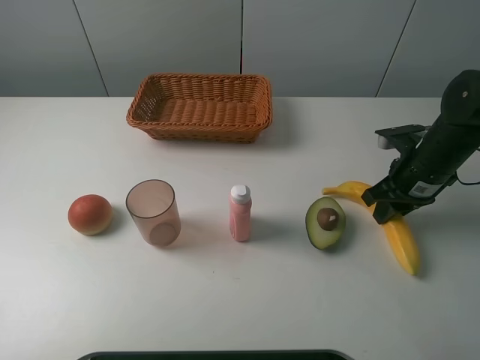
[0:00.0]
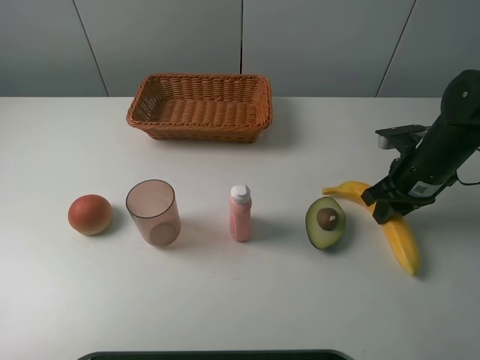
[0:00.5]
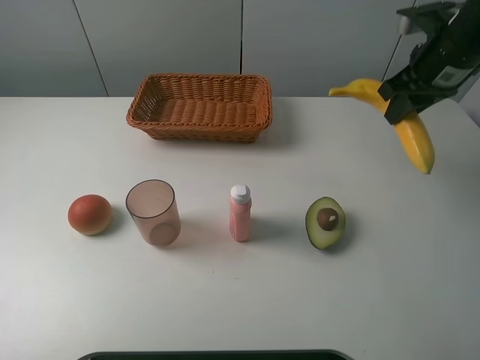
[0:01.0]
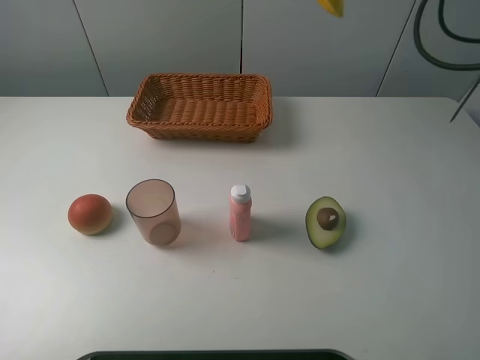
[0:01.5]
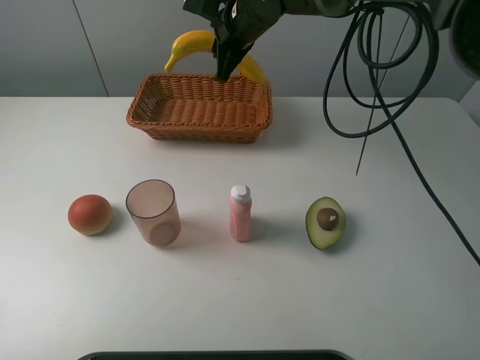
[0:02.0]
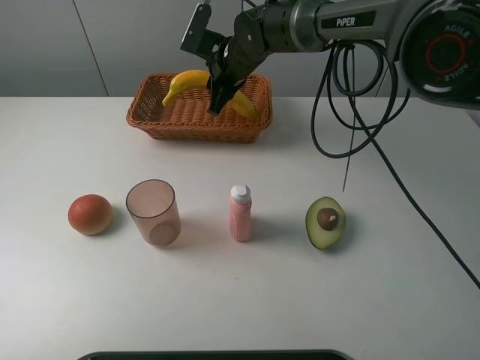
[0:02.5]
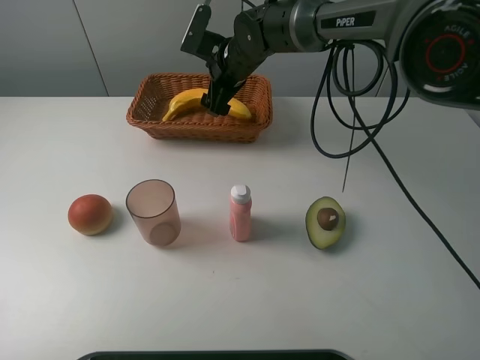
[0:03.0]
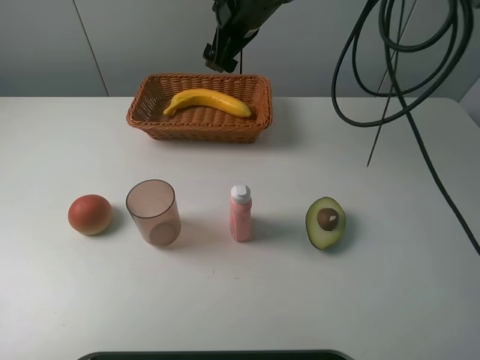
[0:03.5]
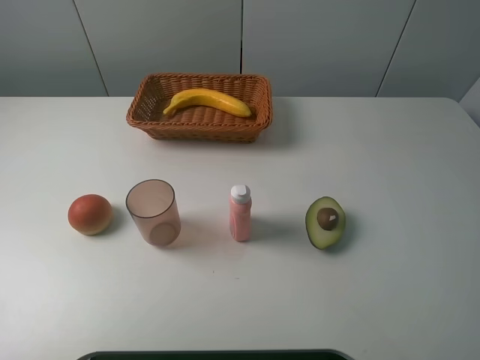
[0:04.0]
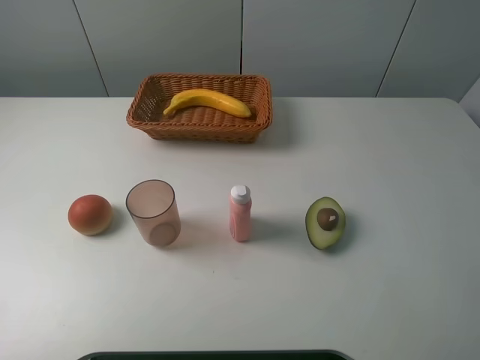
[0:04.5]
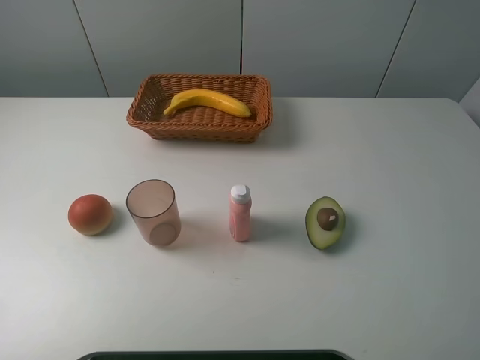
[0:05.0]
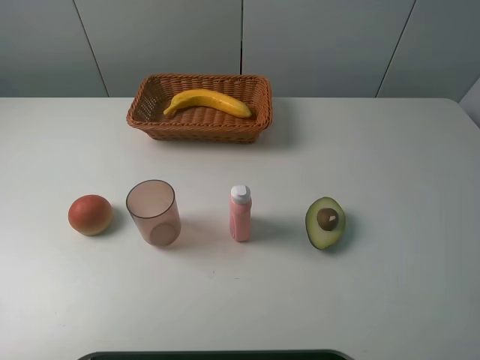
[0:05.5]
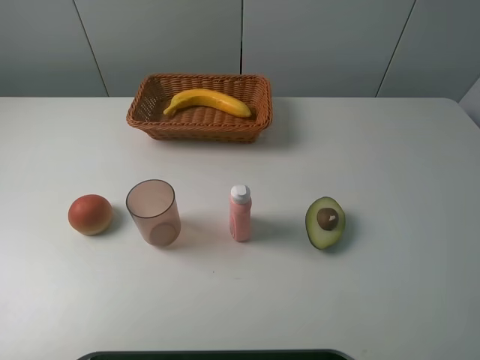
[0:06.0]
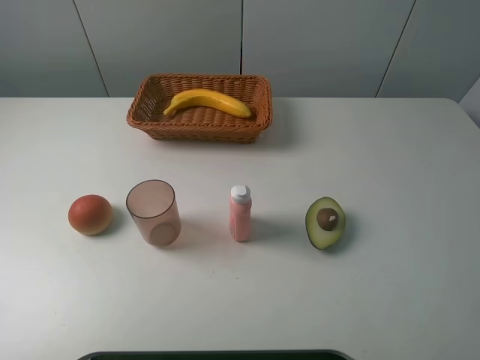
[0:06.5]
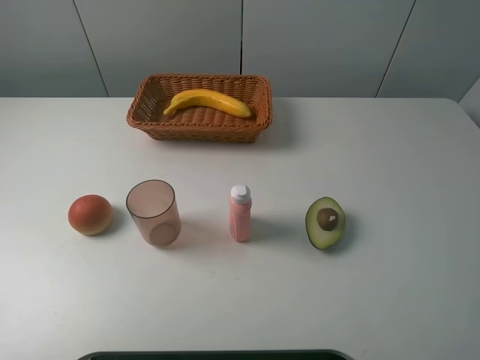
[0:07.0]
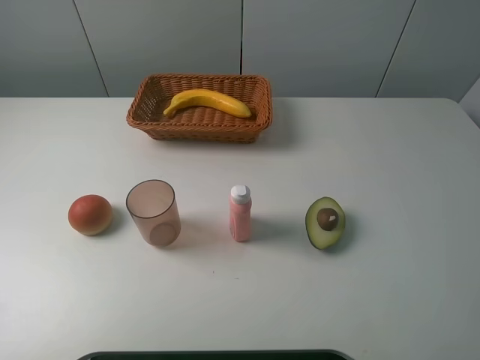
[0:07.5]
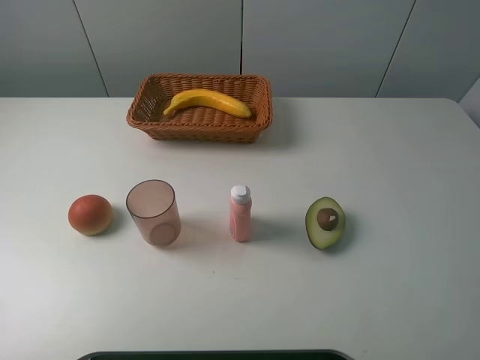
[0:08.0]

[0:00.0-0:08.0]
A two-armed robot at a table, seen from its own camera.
Task of the whole recording: randomly pick up an item from the table and put it in the basket.
Step, 0:00.5 to 0:03.5: Place the banana into the basket with the right gripper.
0:00.0 to 0:02.0: The right gripper goes roughly 30 cm to the left and forward.
0:02.0 to 0:04.0: The right gripper is displaced upward and to the right by about 25 cm, and opens.
